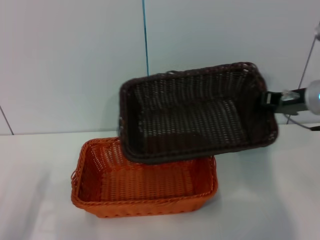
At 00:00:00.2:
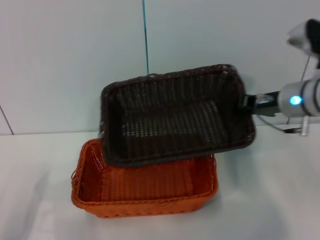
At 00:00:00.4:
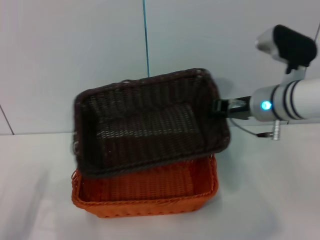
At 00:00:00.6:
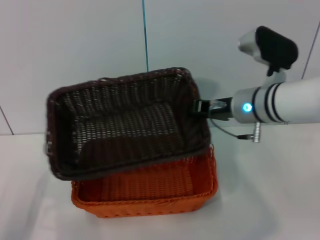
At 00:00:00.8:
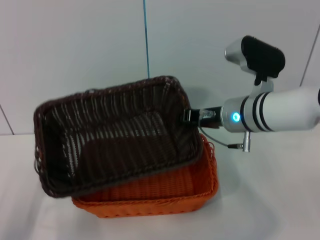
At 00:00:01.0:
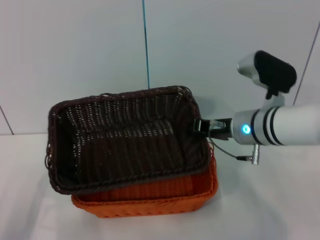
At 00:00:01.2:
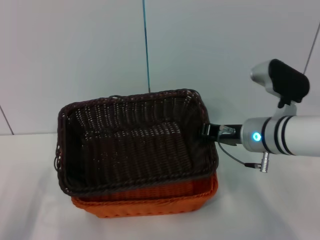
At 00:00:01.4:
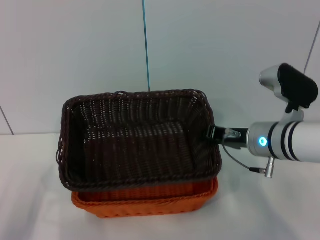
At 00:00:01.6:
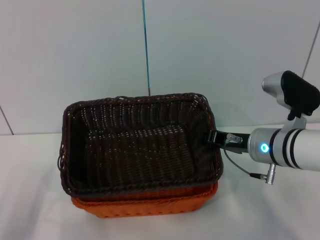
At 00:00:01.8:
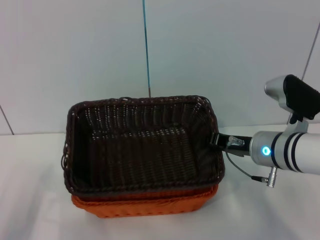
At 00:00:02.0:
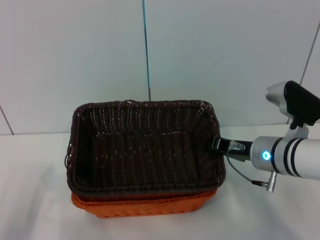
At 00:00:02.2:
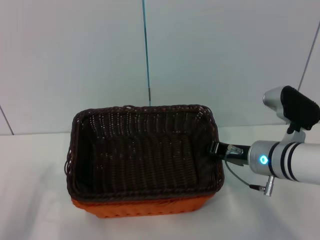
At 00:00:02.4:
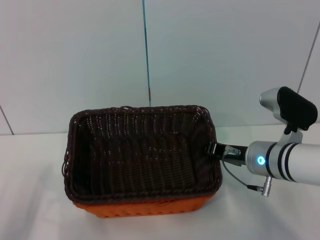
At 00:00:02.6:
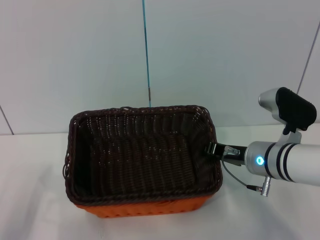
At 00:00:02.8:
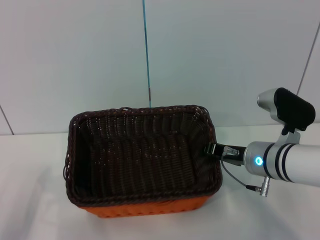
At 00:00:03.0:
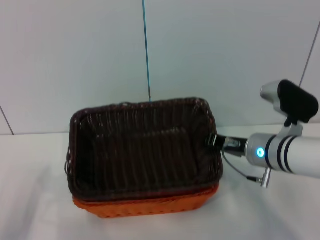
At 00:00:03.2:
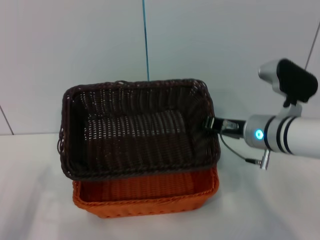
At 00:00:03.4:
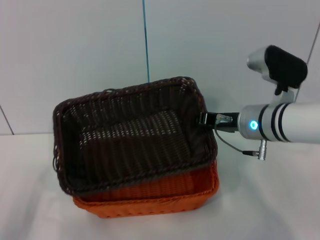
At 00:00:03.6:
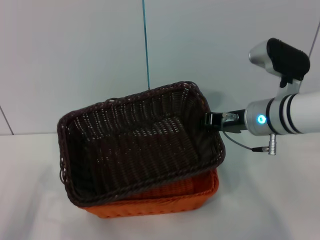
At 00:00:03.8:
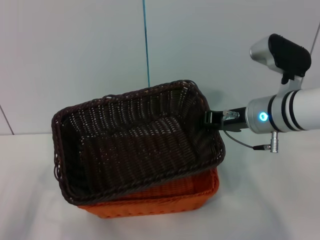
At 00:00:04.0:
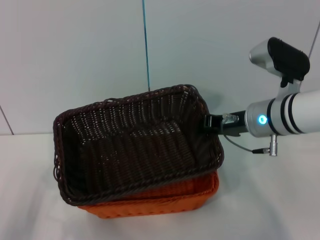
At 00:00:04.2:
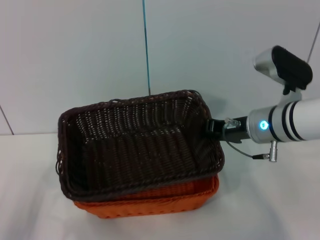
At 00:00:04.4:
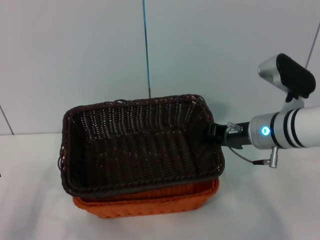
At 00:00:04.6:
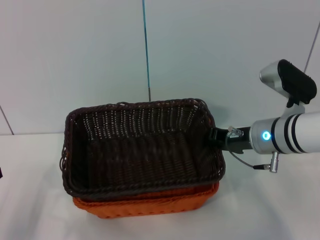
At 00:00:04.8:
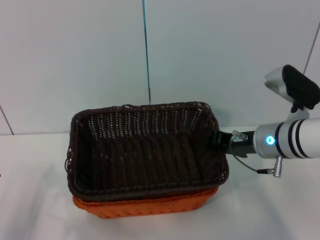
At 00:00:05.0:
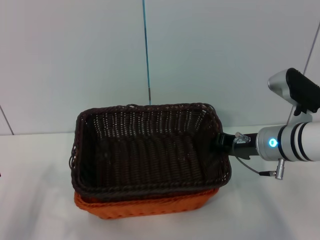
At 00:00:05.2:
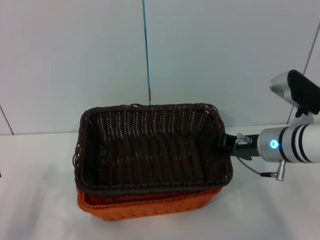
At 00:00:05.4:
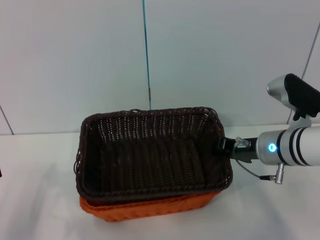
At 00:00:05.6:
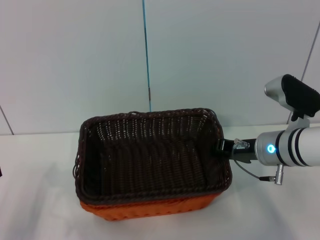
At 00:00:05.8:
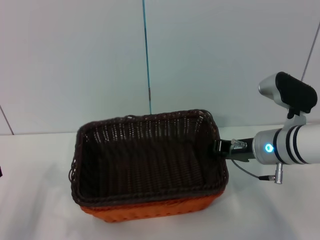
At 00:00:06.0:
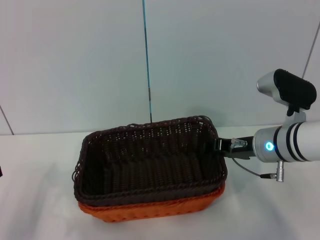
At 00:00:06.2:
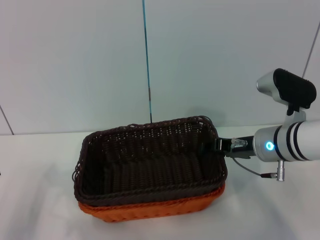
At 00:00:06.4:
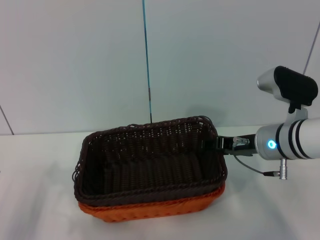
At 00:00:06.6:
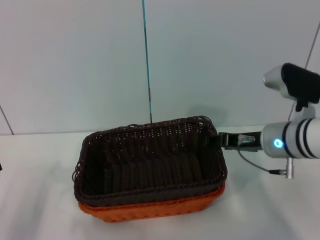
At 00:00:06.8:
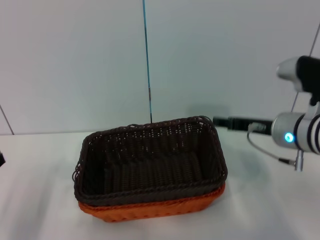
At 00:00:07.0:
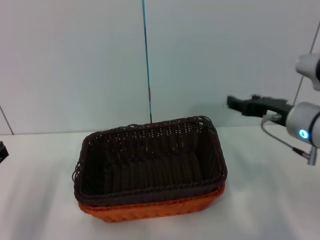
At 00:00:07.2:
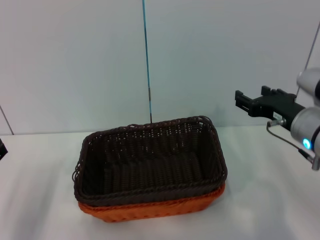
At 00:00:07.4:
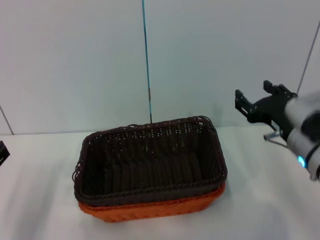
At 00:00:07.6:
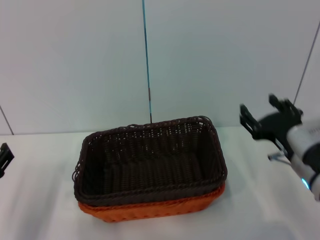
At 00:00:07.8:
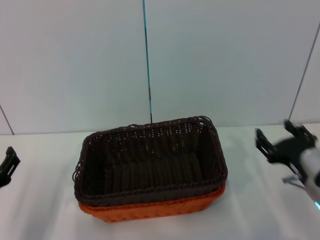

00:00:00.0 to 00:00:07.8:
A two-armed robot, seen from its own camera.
Step, 00:00:00.0 to 00:00:06.0: Place the dark basket on the light basket with the right gripper.
00:00:00.0 to 00:00:01.6: The right gripper travels to the left and downward by some 10 cm.
00:00:01.6 to 00:00:04.6: The grippers make only small movements.
00:00:04.6 to 00:00:06.2: The right gripper opens up.
00:00:06.2 to 00:00:07.8: The right gripper moves backward, to the right and downward, roughly 10 cm, and opens up. The left gripper moves approximately 5 cm.
